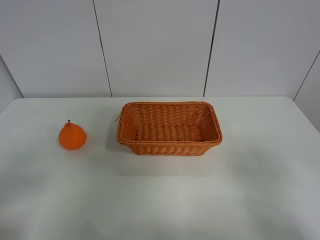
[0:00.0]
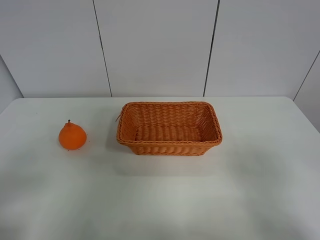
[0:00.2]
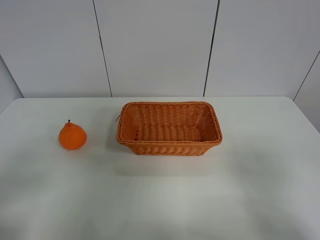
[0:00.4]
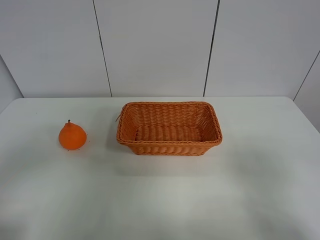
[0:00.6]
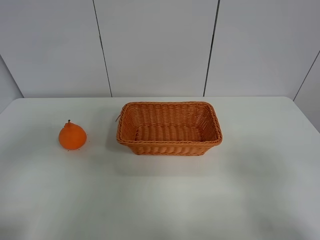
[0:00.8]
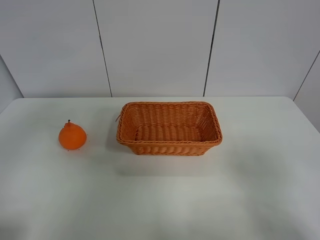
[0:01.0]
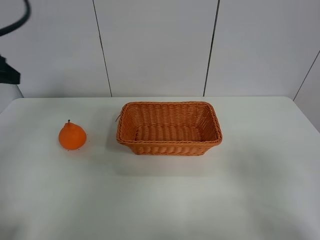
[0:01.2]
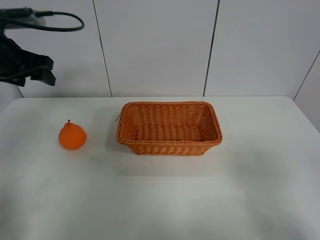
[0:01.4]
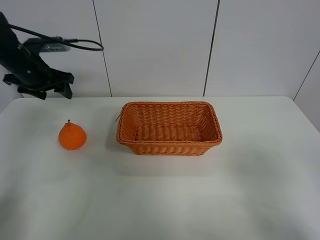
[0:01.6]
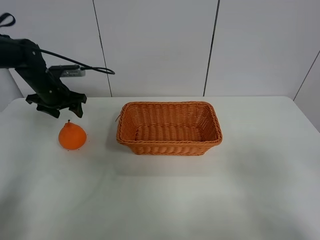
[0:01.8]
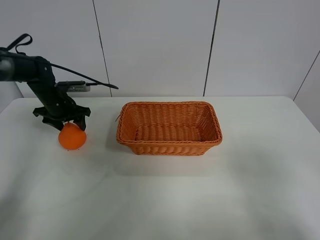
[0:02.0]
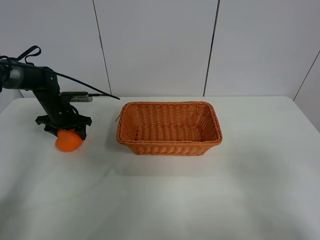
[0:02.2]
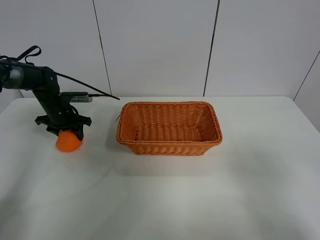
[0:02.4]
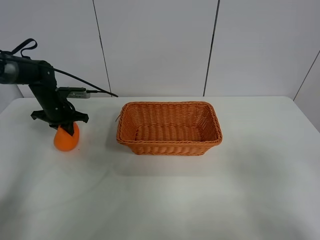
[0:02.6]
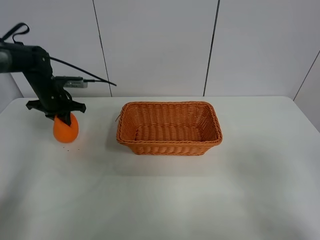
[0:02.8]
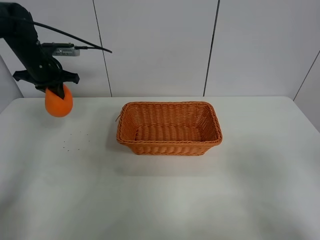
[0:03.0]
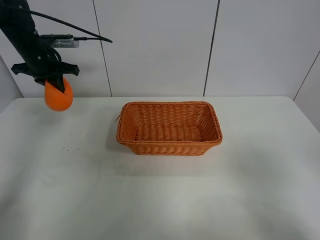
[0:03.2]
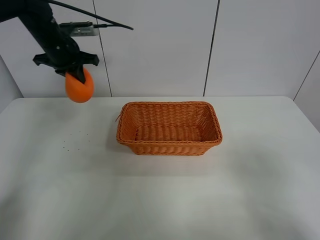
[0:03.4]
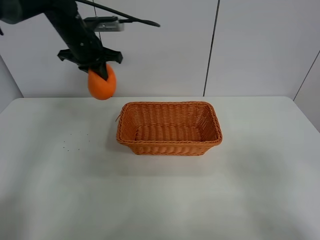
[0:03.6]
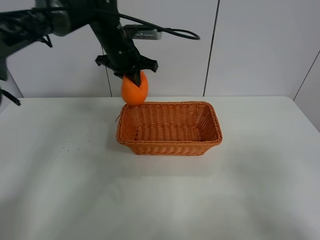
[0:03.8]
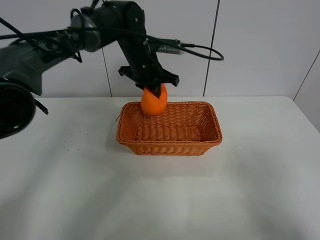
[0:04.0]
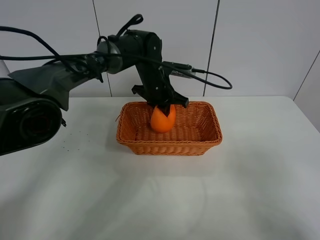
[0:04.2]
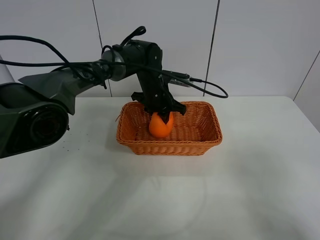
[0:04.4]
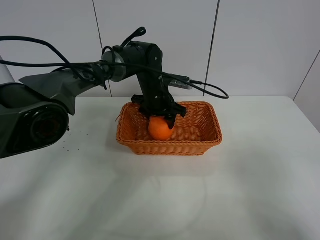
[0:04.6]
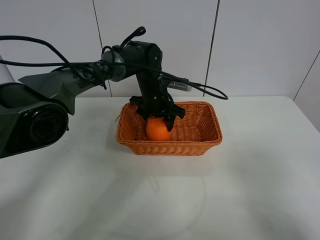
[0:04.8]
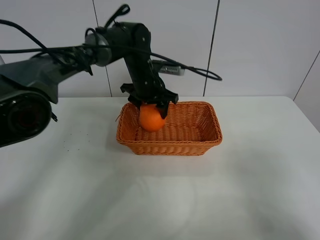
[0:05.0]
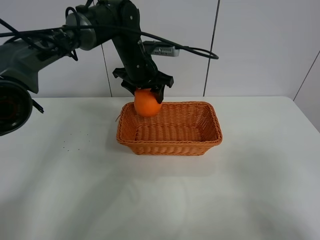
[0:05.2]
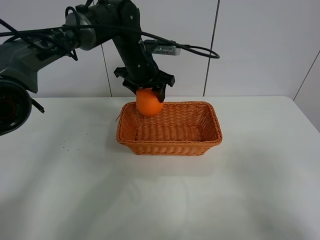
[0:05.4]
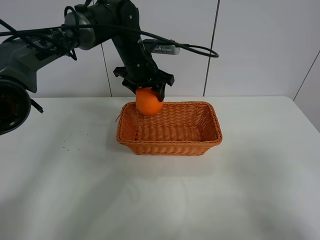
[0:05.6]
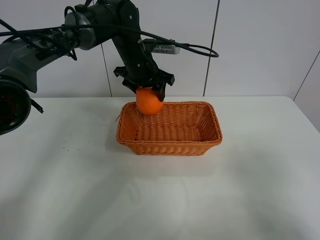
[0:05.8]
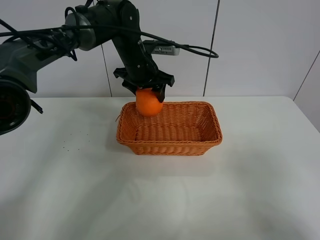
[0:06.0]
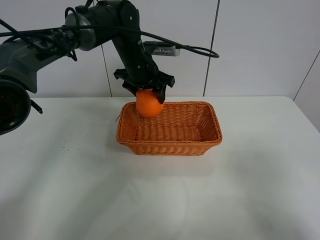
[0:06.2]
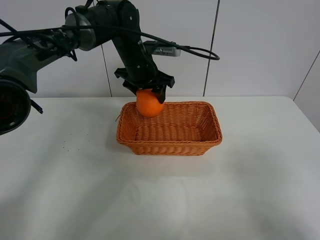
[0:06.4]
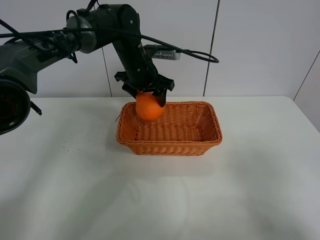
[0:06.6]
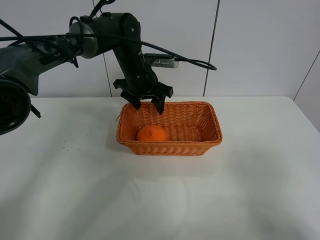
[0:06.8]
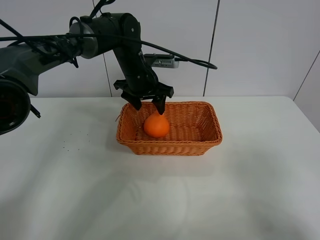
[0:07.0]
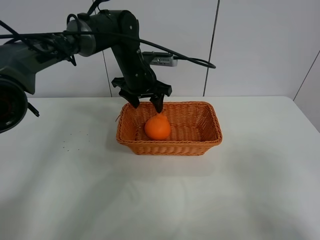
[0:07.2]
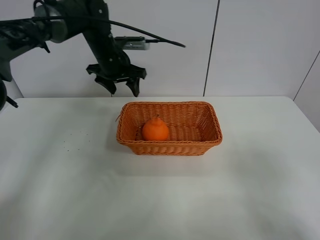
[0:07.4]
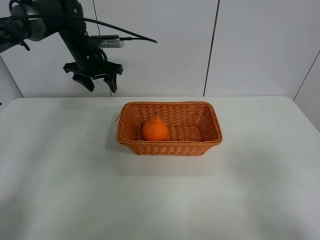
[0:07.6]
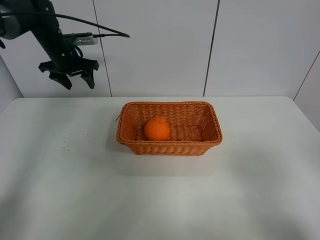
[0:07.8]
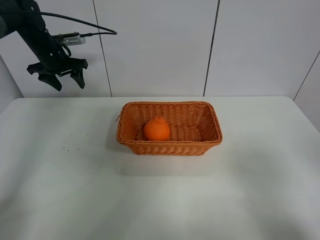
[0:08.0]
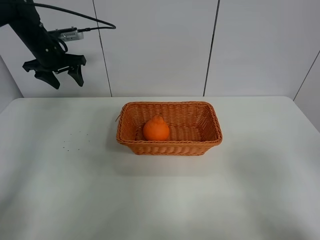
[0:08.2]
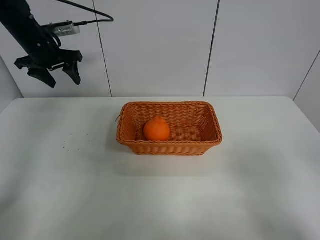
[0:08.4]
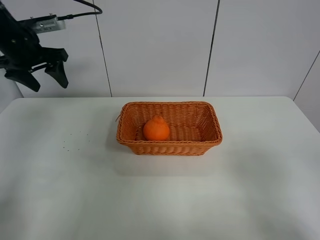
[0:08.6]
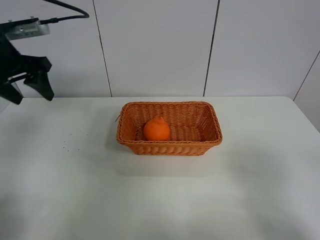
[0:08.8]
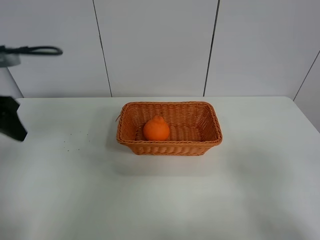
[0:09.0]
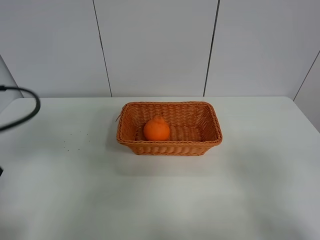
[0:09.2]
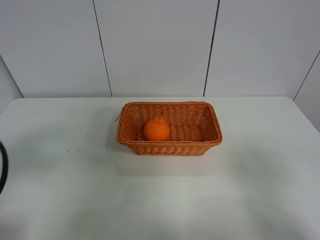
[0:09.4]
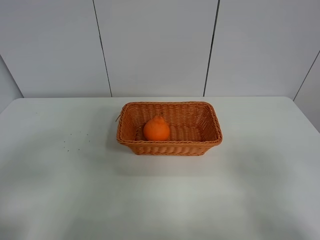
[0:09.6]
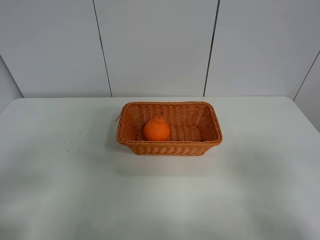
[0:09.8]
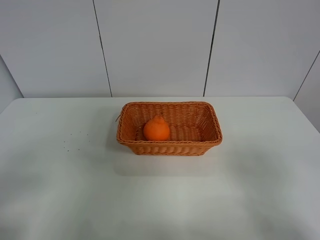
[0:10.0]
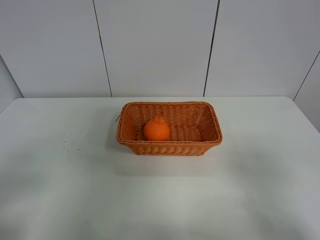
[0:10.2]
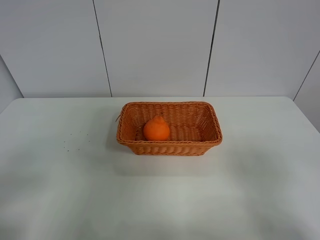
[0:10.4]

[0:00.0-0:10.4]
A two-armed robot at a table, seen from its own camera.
Task of the whole recording: left gripper grabs oranges and puts them in the basket.
Step, 0:00.0 to 0:02.4: Grasp the orange with left gripper.
Step, 0:02.6 to 0:07.4: Place the orange in the basket with left gripper.
0:00.0 to 0:01.4: The left gripper is displaced forward by about 35 cm.
0:01.4 to 0:03.0: The left gripper moves forward, approximately 10 cm, reaches approximately 20 cm downward, then returns, and closes.
0:03.0 to 0:04.4: The left gripper heads to the right, covering some 30 cm, and opens.
0:04.4 to 0:06.0: The left gripper moves upward, about 10 cm, and opens its fingers.
0:06.0 to 0:07.4: The left gripper travels to the left by approximately 10 cm.
0:07.4 to 0:09.0: The left gripper moves backward and to the left, approximately 30 cm.
0:09.0 to 0:10.4: The left gripper heads backward, covering about 20 cm.

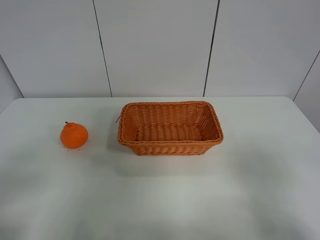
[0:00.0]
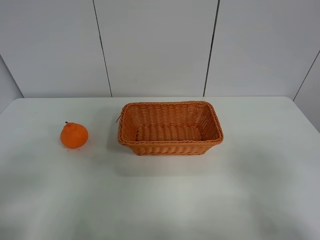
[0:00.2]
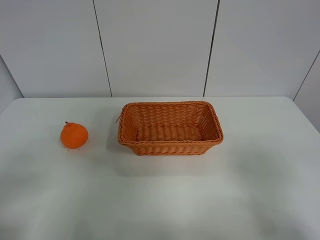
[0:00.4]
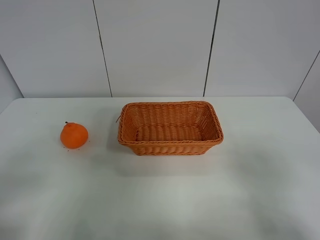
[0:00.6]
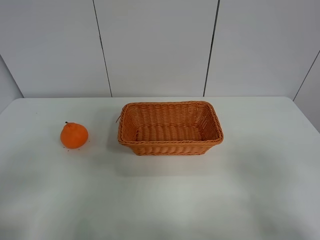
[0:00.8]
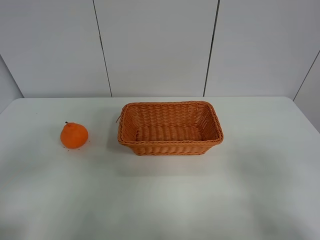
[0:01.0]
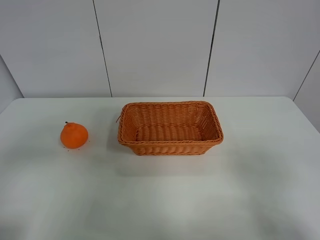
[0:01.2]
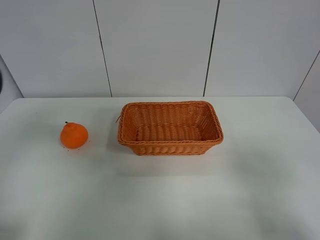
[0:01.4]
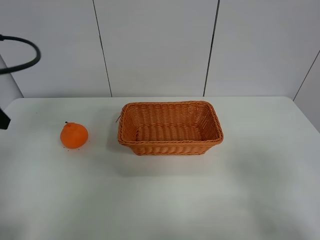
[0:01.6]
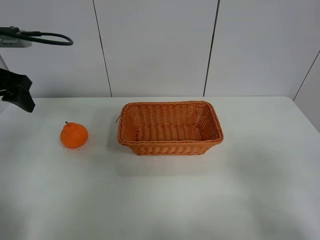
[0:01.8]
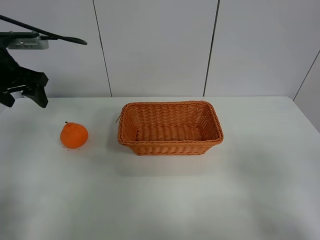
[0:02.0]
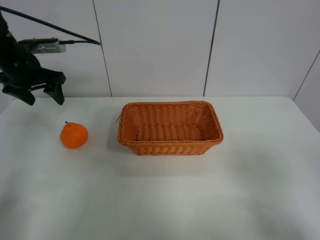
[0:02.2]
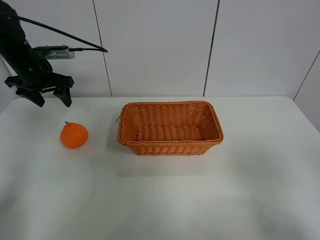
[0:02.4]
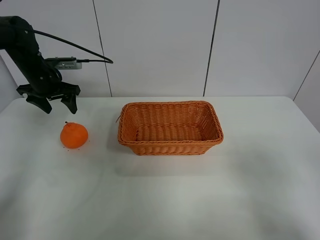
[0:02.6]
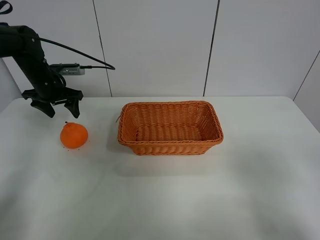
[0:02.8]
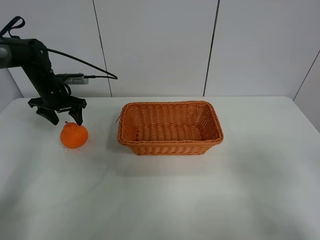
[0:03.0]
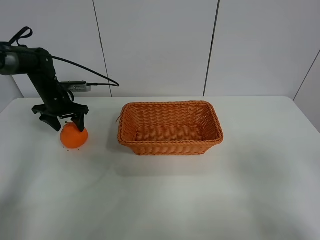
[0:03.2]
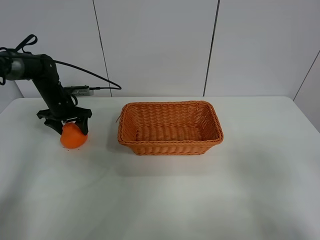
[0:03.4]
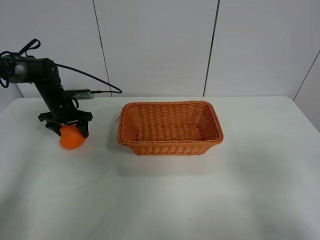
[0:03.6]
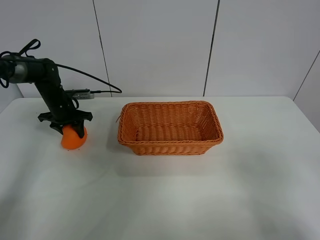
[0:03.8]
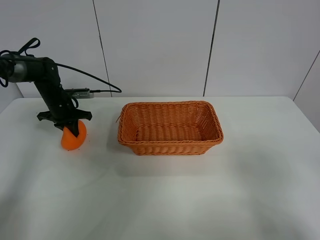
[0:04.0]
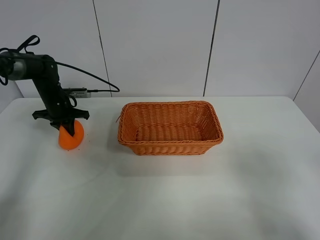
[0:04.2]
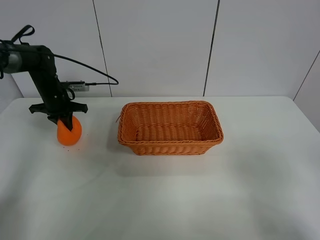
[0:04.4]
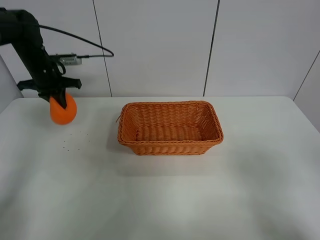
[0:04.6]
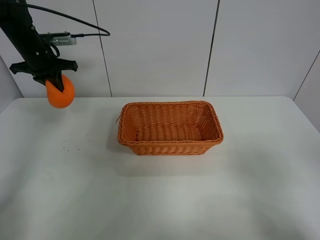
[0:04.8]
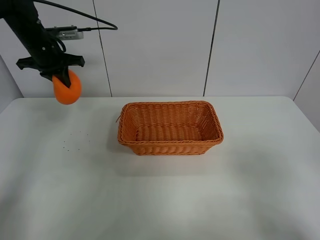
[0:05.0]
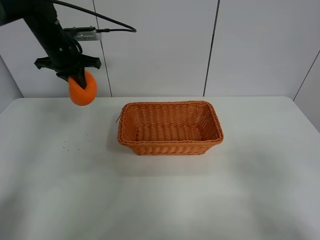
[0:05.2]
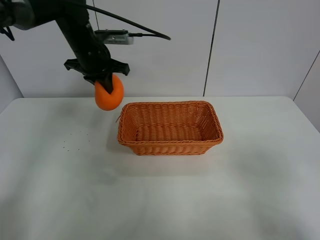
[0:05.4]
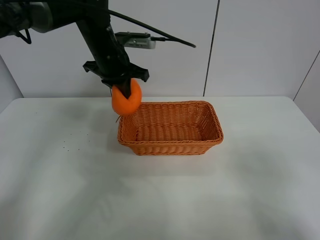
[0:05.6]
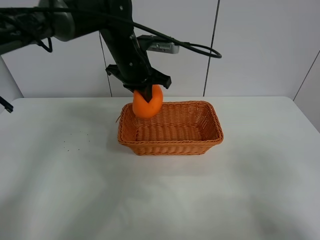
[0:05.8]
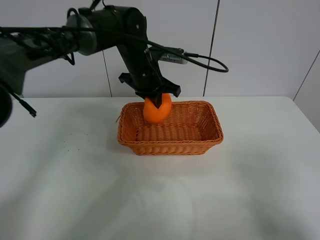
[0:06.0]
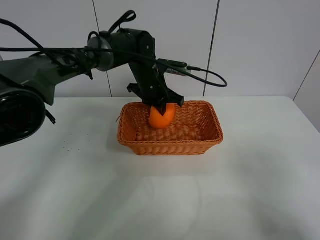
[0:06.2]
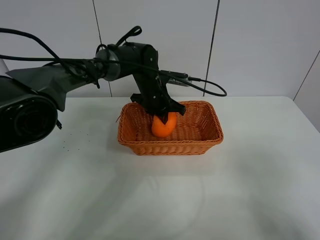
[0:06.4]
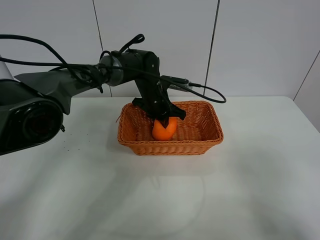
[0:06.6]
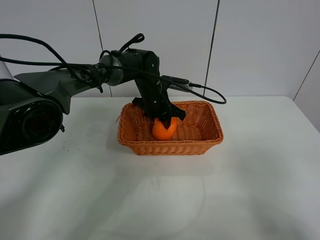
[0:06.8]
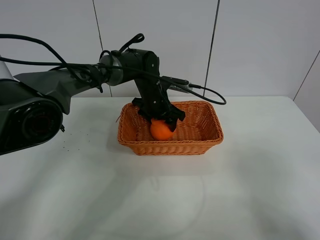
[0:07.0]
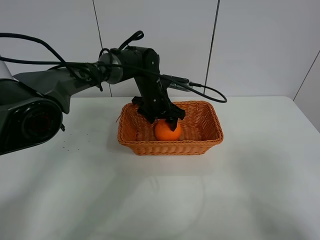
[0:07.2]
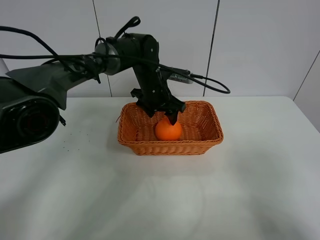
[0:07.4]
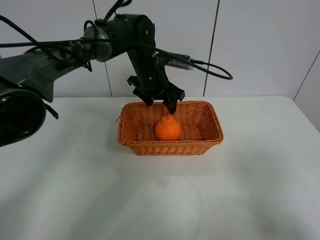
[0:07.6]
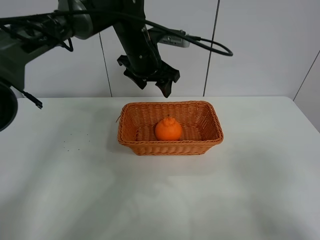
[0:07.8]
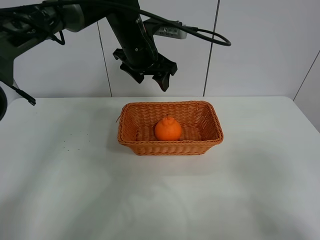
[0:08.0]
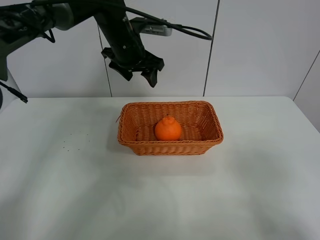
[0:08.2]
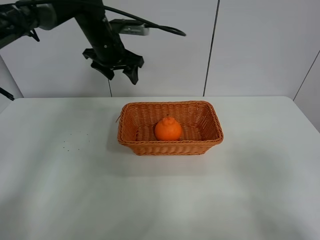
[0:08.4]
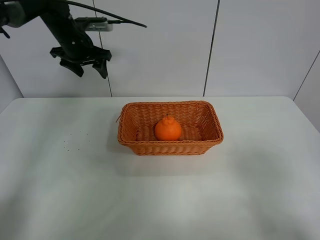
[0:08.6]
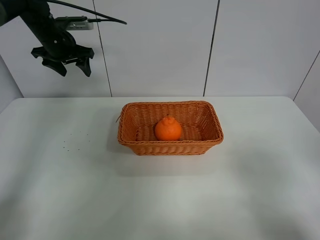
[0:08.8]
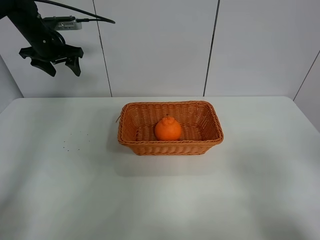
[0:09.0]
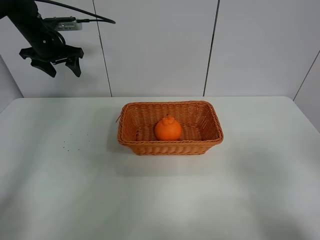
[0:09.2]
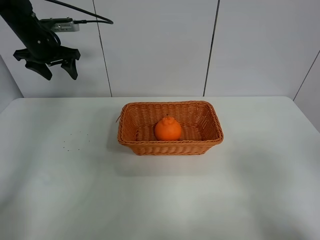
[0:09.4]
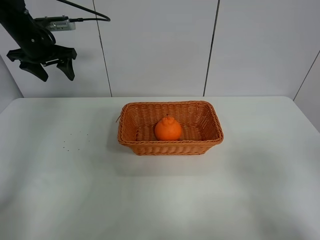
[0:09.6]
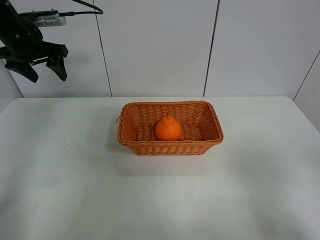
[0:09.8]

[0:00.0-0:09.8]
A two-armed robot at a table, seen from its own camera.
Task of the whole recording: left gripper grabs oranges and puts them in the basket.
Step, 0:00.0 to 0:04.2: Grasp the orange with left gripper.
Step, 0:04.4 to 0:08.4: Place the orange in the basket with left gripper.
0:00.0 to 0:01.4: The left gripper travels forward and upward by some 15 cm.
0:01.4 to 0:02.8: The left gripper shifts roughly 30 cm forward and downward.
0:02.8 to 0:04.2: The left gripper moves downward, some 5 cm, and closes its fingers.
0:04.2 to 0:05.6: The left gripper shifts some 25 cm to the right and upward.
0:05.6 to 0:07.0: The left gripper is displaced downward and to the right by roughly 15 cm, and opens.
0:07.0 to 0:08.4: The left gripper moves upward and to the left, approximately 20 cm.
0:08.4 to 0:09.8: The left gripper is displaced to the left by approximately 15 cm.

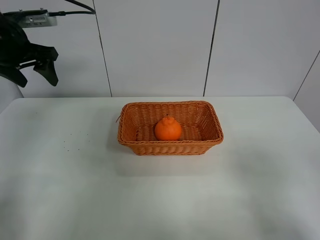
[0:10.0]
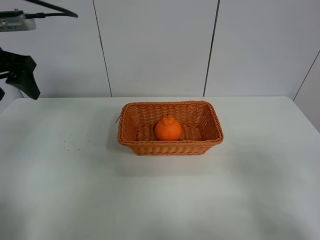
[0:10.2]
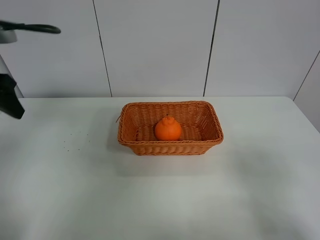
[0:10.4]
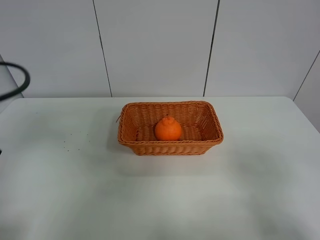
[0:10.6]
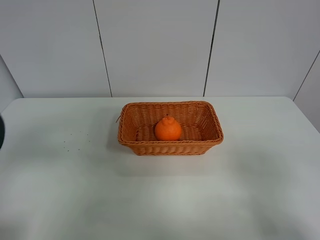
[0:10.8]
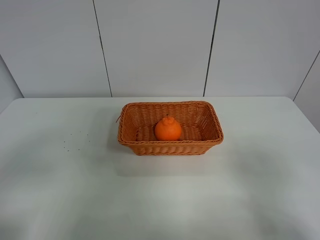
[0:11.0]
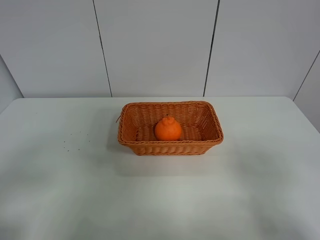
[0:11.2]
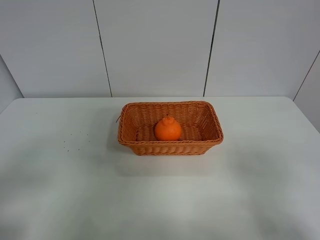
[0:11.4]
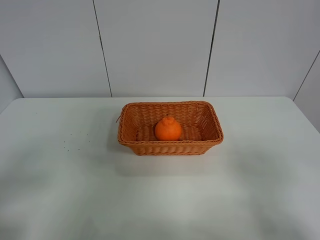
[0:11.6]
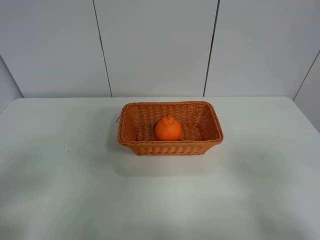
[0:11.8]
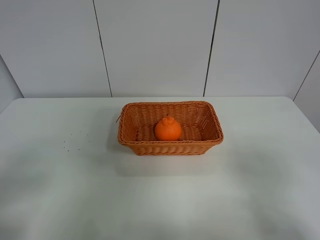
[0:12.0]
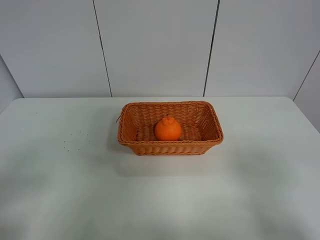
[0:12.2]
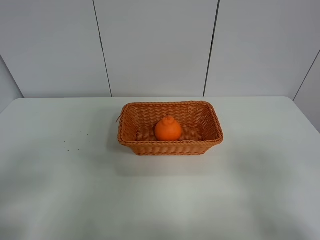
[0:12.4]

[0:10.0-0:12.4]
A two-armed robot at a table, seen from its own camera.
Task of the whole recording: left gripper grabs oranges and puts them in the basket.
0:10.0 to 0:11.2: The left gripper shifts roughly 35 cm backward.
